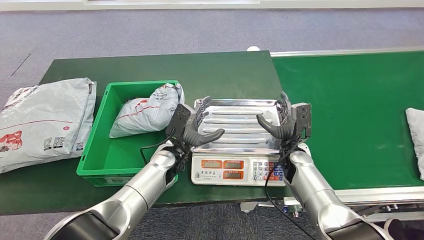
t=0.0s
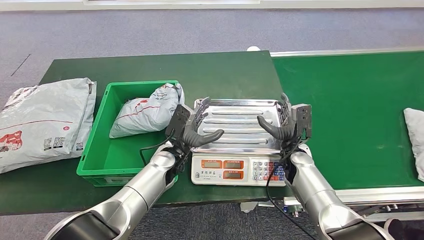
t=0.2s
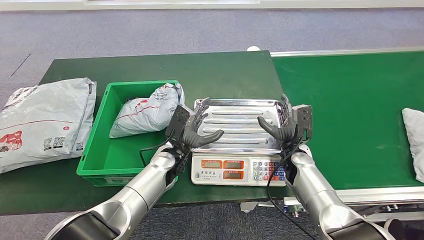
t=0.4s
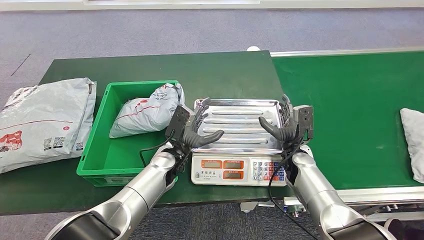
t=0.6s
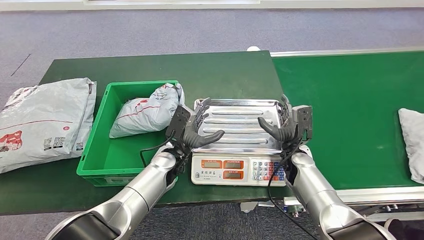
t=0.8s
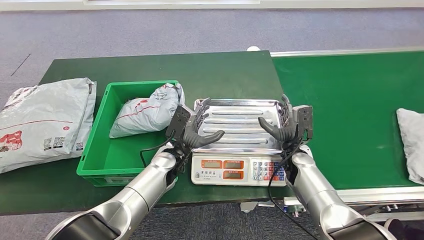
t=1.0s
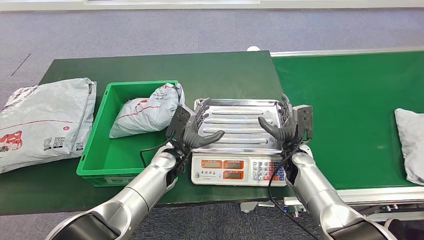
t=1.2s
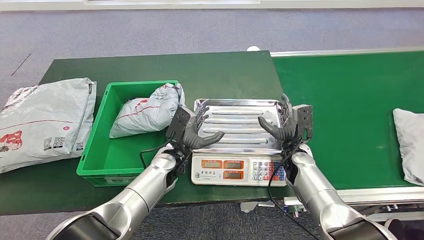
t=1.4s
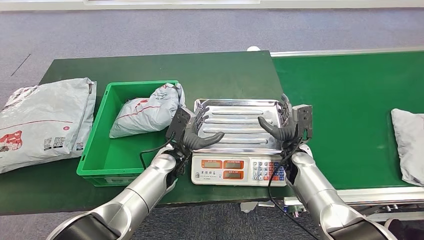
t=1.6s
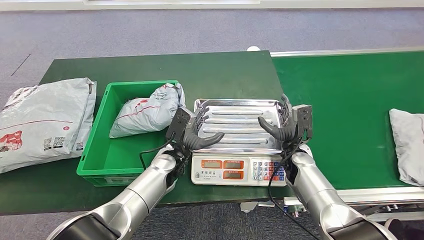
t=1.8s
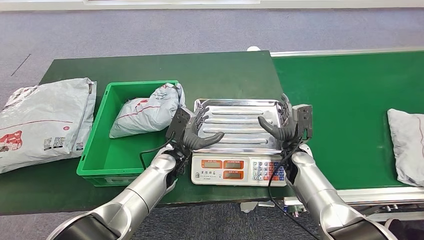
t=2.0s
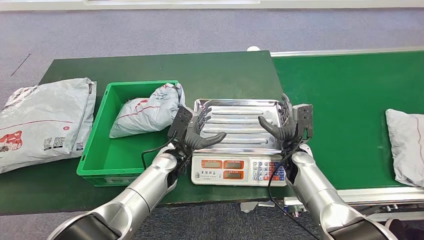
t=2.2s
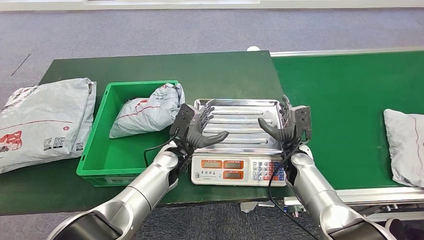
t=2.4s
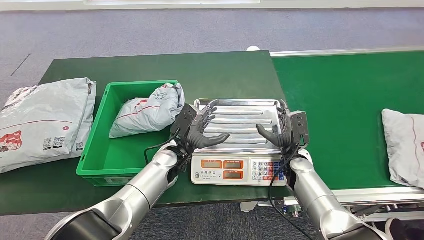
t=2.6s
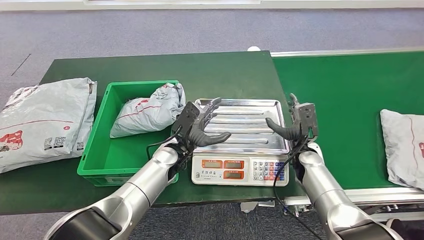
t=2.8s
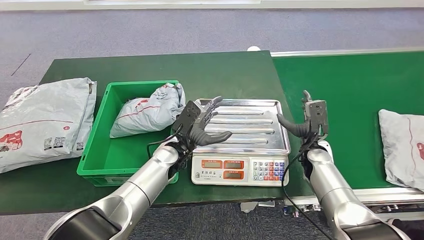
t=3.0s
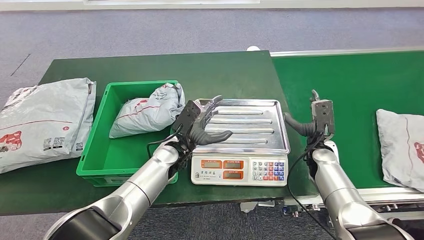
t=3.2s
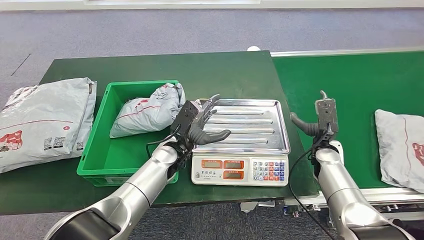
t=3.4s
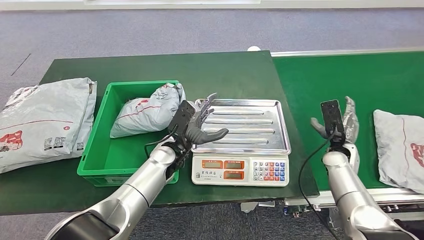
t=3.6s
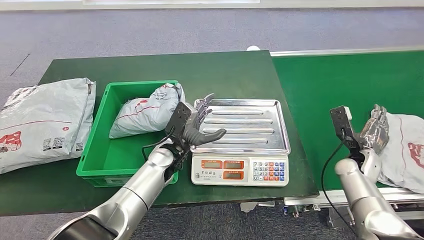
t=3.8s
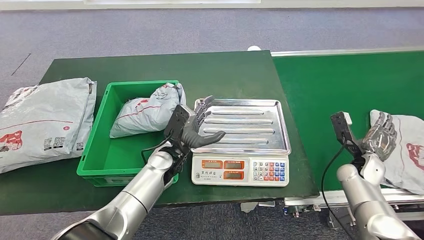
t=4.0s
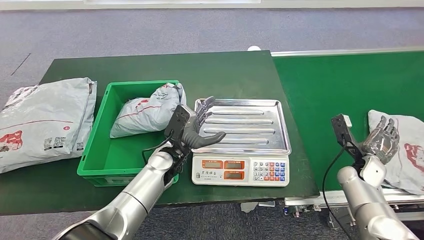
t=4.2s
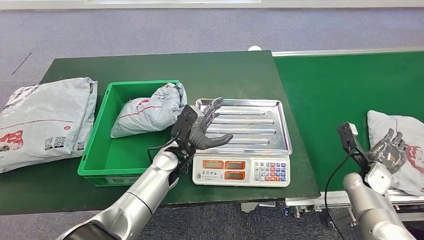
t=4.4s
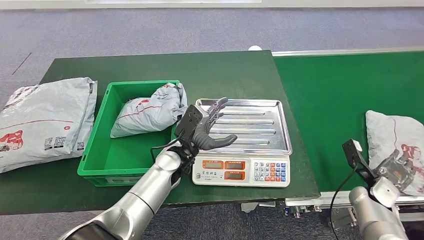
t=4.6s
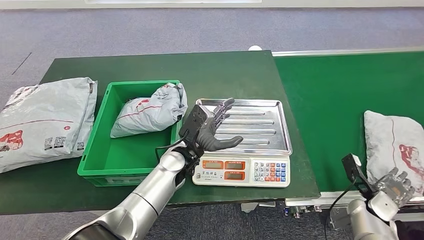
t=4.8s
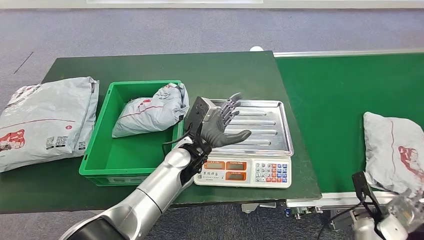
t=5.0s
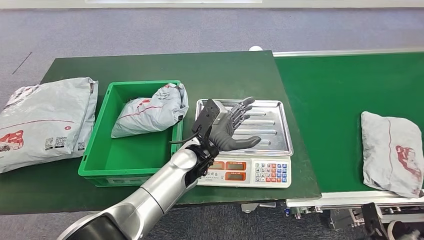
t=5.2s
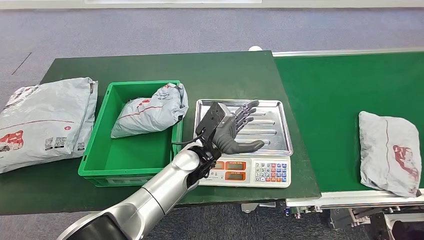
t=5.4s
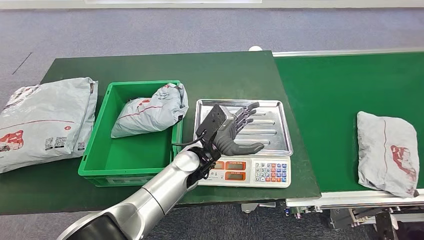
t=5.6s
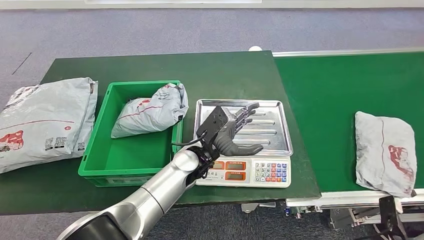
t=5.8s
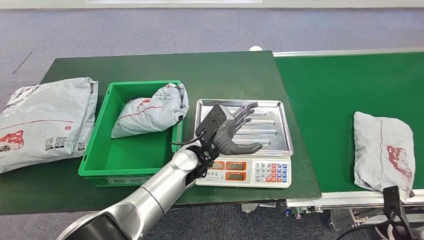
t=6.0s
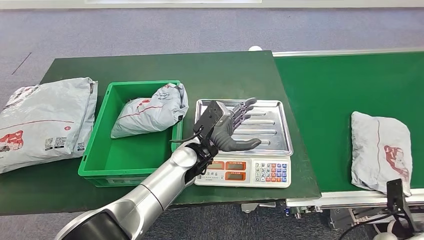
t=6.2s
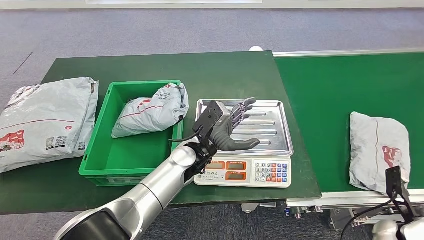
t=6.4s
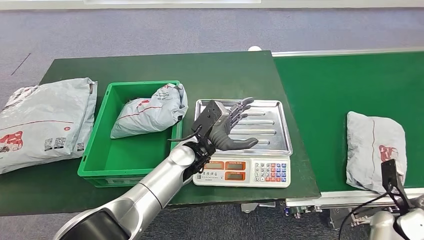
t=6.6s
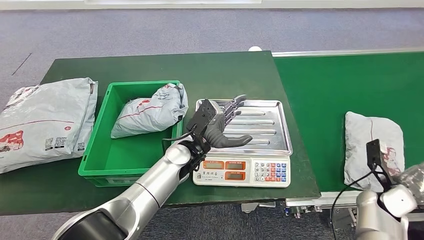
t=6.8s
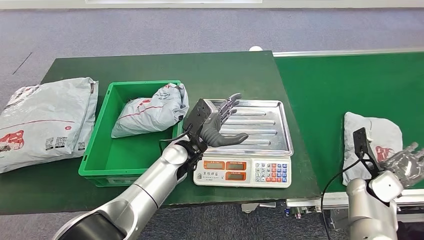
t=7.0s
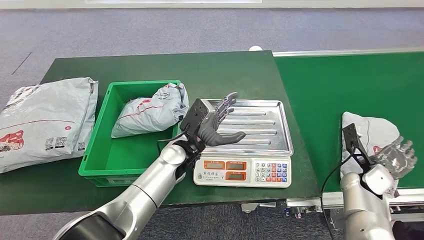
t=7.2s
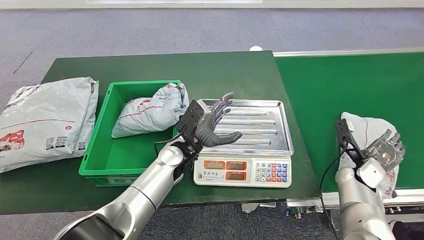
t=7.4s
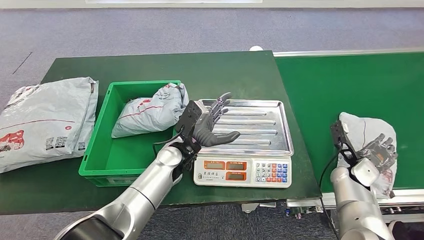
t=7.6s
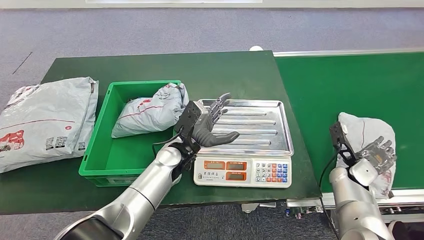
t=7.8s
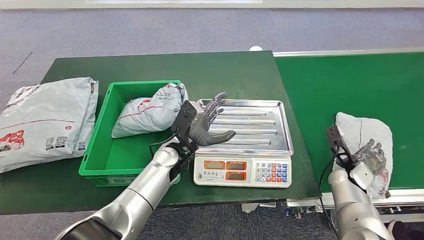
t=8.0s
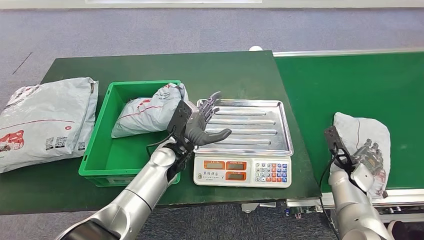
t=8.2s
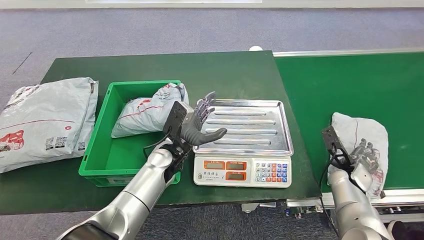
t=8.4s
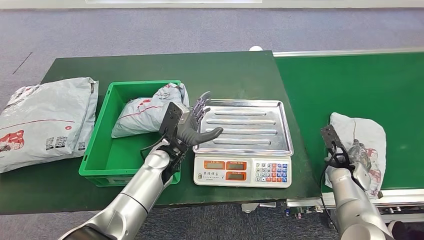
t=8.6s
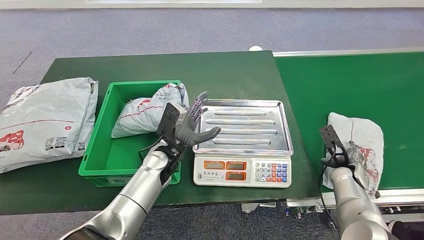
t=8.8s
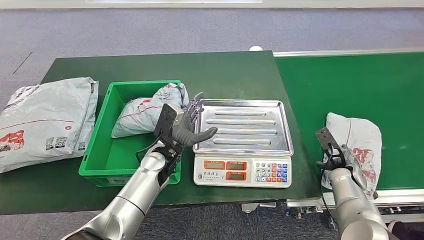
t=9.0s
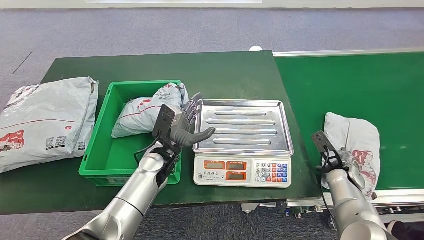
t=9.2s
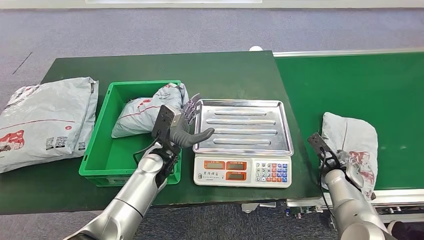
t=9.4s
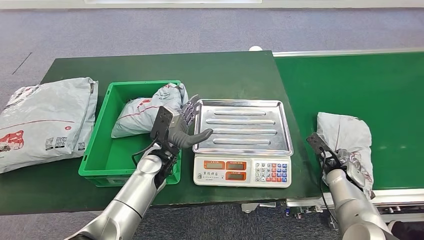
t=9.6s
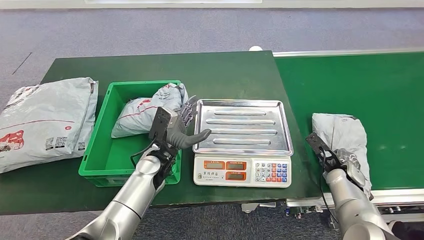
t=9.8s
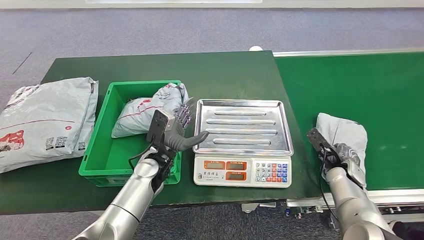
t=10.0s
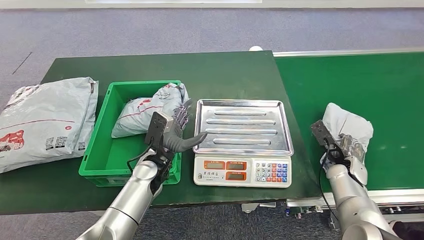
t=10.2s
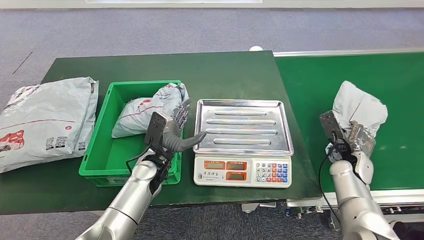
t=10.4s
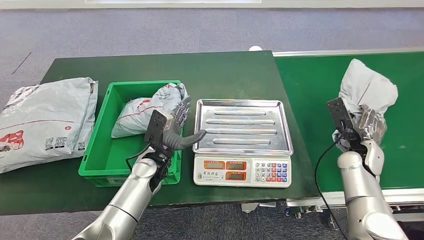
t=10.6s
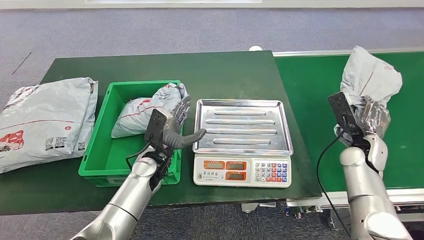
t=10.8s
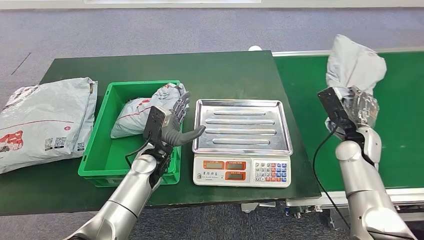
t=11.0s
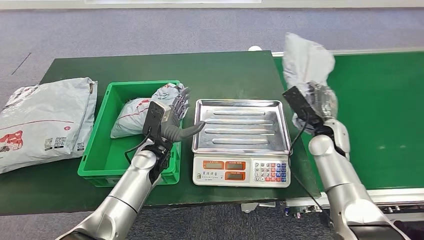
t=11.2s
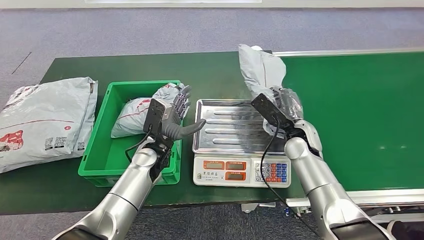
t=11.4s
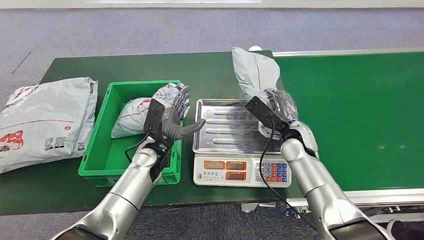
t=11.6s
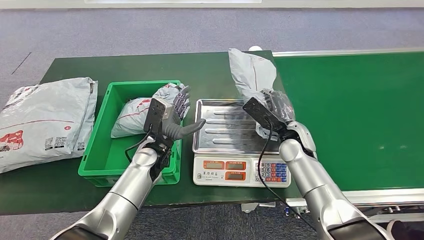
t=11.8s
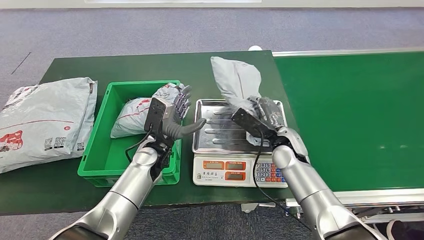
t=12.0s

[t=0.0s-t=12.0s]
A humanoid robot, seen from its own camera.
Step, t=8.6s to t=10.8s: Pick up the parcel from the conveyor belt.
t=0.0s to t=1.6s: The two hands keep their place.
t=1.6s to t=3.0s: The right hand shifts approximately 5 cm to the right.
t=3.0s to t=4.4s: The right hand moves to the right and backward, some 15 cm.
t=4.4s to t=6.0s: The left hand goes about 5 cm to the right; the right hand travels backward by some 15 cm.
t=6.0s to t=7.6s: The right hand shifts approximately 20 cm forward.

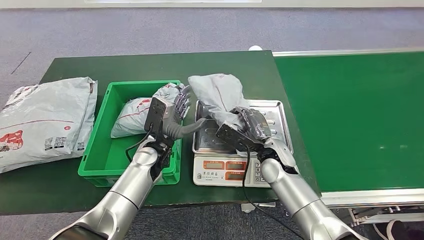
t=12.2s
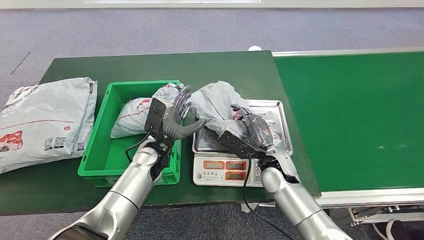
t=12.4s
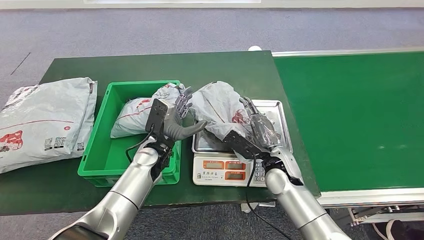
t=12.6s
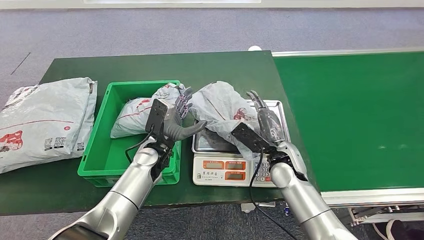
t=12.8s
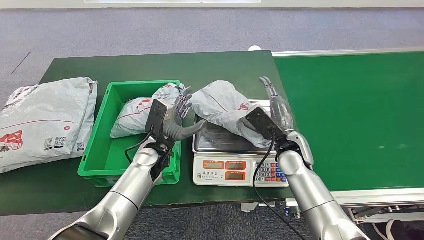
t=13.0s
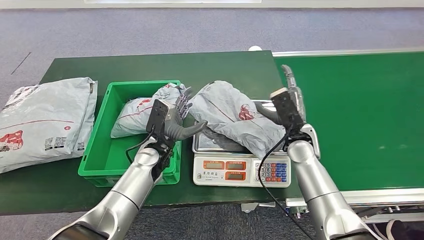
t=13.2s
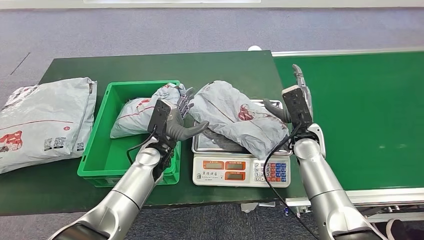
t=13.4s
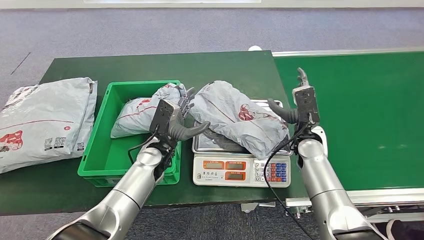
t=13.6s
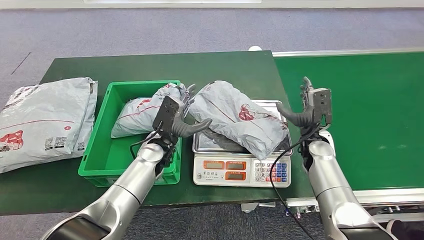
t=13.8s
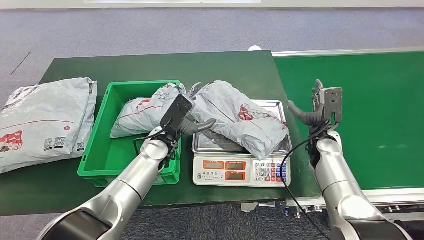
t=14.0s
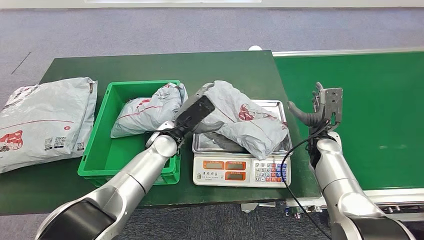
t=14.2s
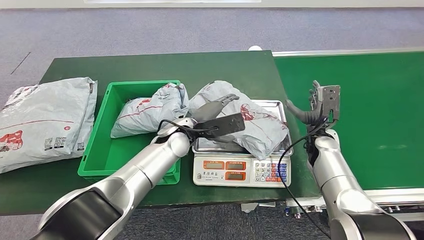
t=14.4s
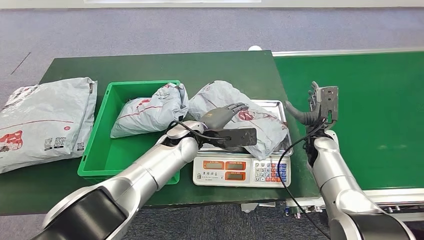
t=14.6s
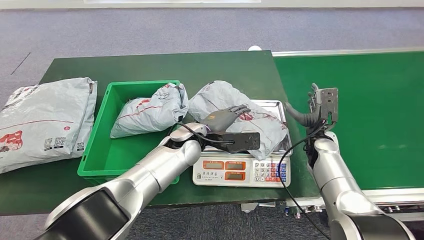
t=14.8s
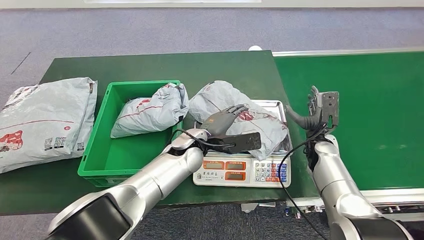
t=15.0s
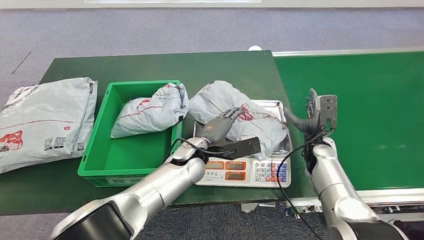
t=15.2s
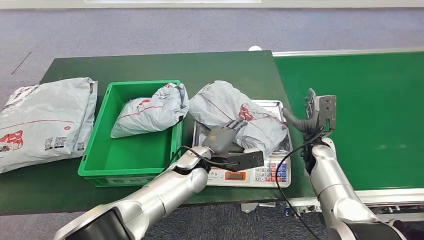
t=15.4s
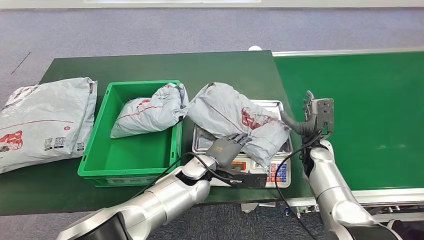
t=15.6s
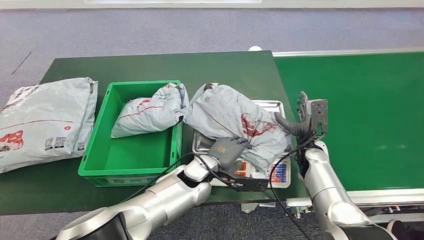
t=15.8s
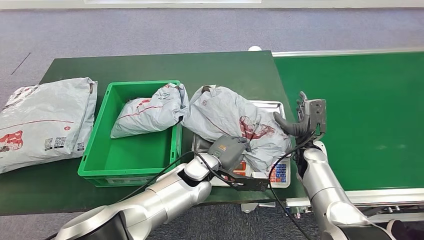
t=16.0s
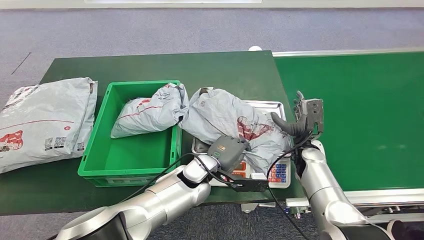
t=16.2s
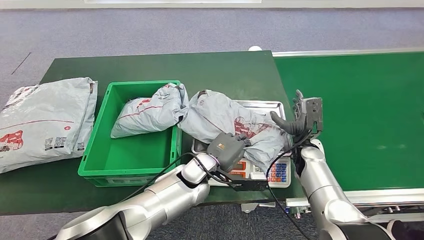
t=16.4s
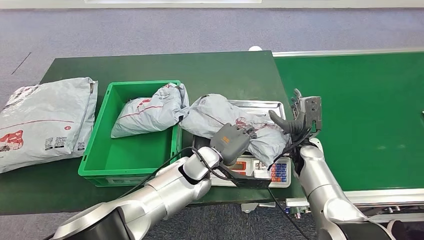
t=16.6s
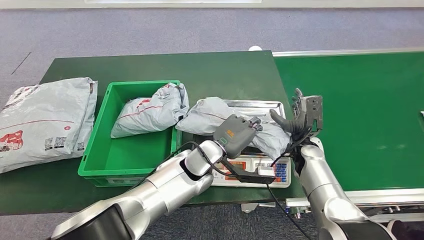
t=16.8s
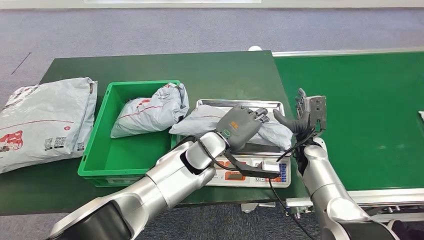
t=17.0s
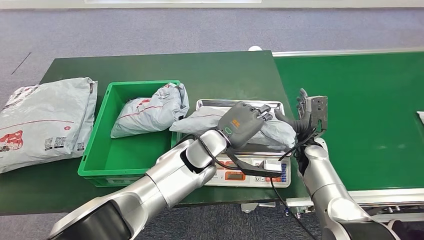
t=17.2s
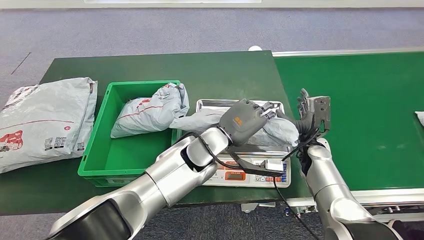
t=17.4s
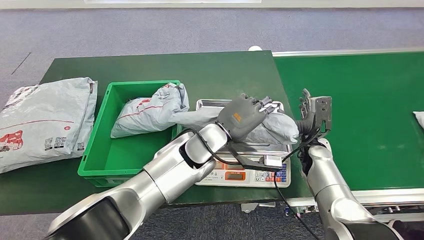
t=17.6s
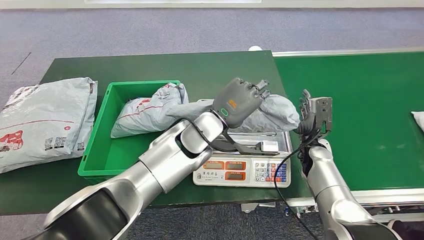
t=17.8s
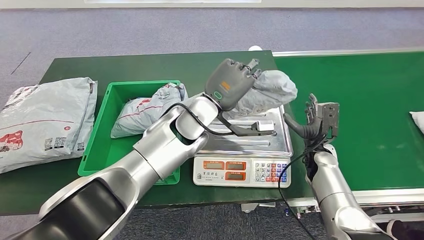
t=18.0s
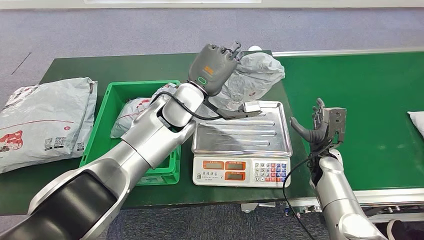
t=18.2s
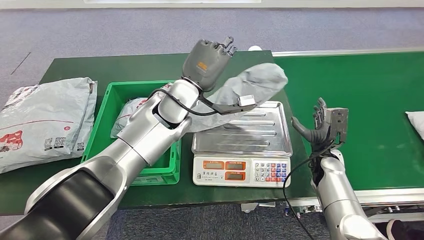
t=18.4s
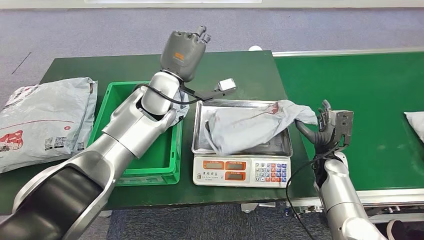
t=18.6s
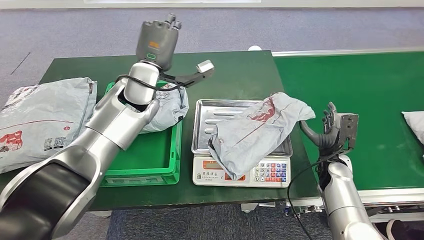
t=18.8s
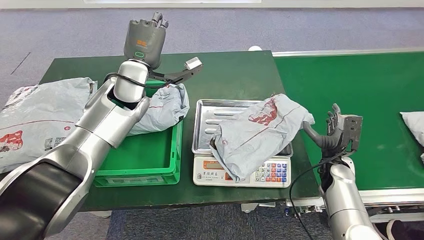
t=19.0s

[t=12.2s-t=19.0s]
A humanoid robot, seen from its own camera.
Step, t=12.2s to t=13.8s: Place the parcel onto the inbound machine.
Step, t=14.0s to t=17.6s: Pick up the parcel from the inbound machine.
t=12.2s to t=13.6s: The right hand heads to the right, covering roughly 10 cm.
t=13.6s to t=15.0s: The left hand moves to the right, some 10 cm. Meanwhile the right hand shifts some 5 cm to the right.
t=16.2s to t=17.6s: The left hand travels upward by roughly 10 cm.
